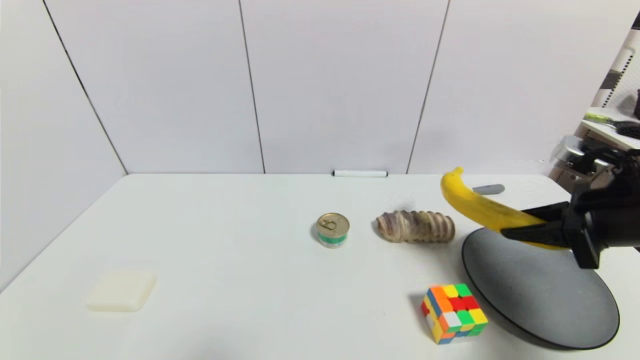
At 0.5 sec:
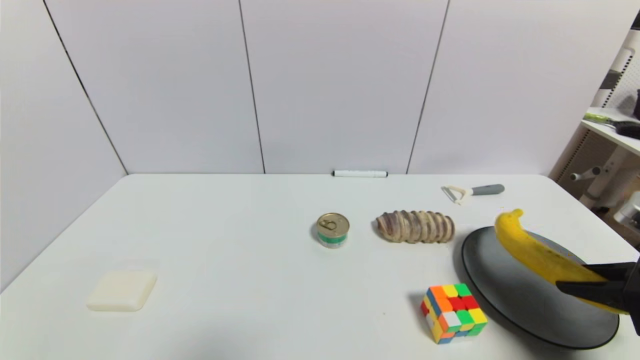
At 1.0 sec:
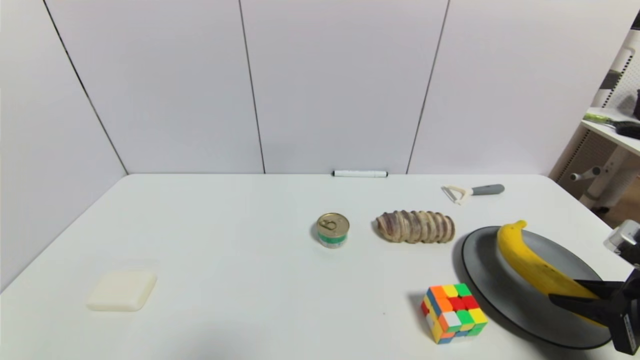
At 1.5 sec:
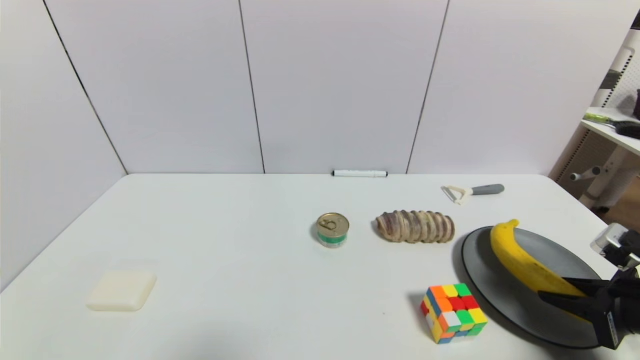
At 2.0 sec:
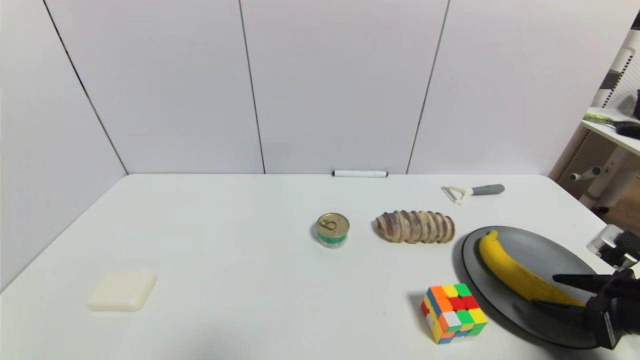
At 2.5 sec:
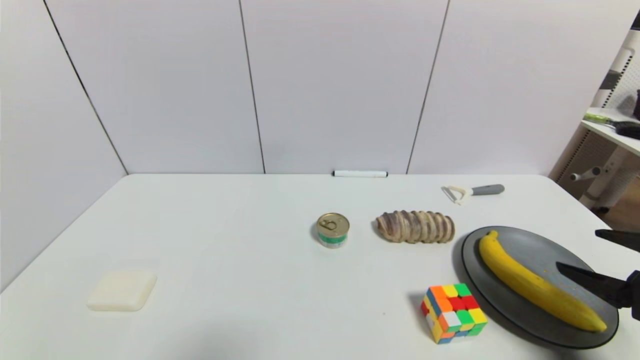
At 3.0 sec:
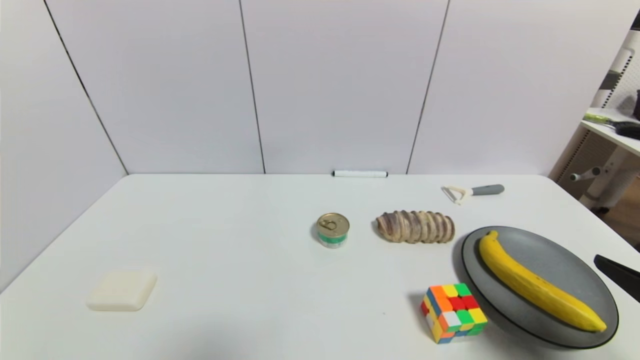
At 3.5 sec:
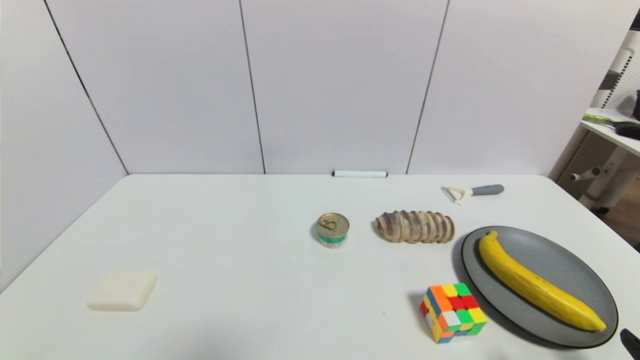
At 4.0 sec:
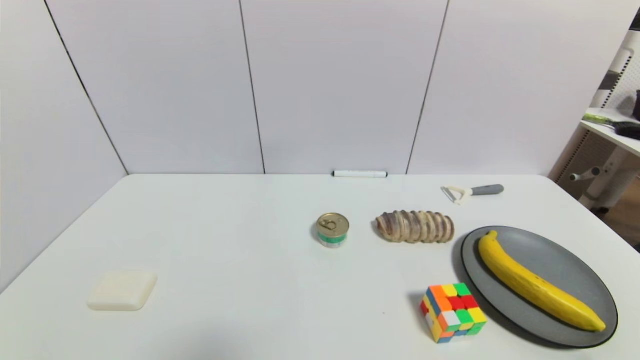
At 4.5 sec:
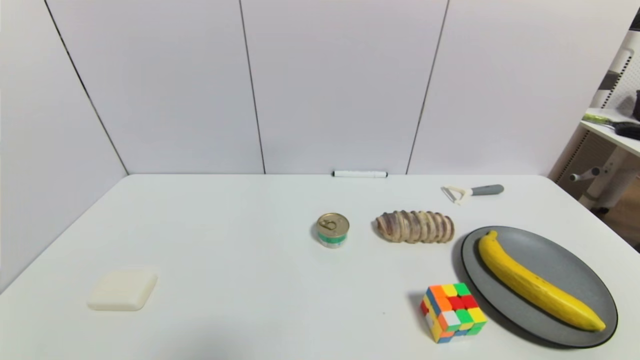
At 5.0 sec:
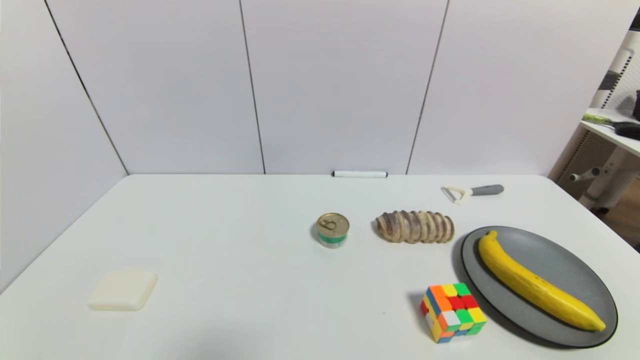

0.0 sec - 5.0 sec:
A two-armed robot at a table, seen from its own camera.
Task of the whole recording: use a gripper to pick the target object and place on the gray plate.
Step, 0.0 sec - 2.0 sec: Place the banana on the gray plate with the right gripper.
0.0 sec - 2.5 sec: The right gripper is displaced backward by roughly 10 cm, and opens up.
2.5 sec - 5.0 sec: The right gripper shifts roughly 20 cm backward and downward.

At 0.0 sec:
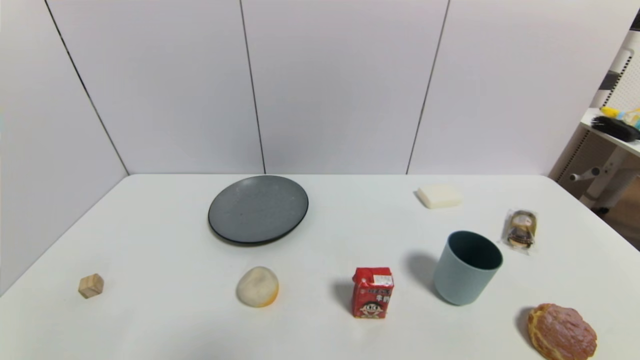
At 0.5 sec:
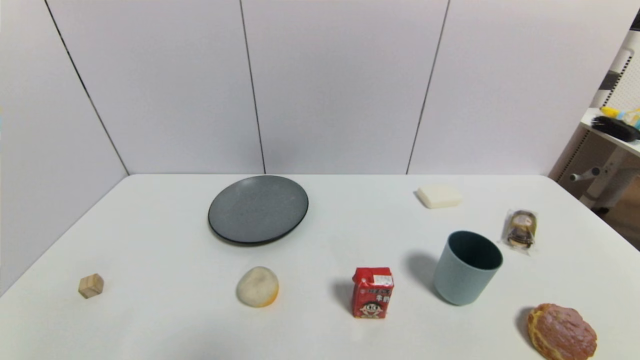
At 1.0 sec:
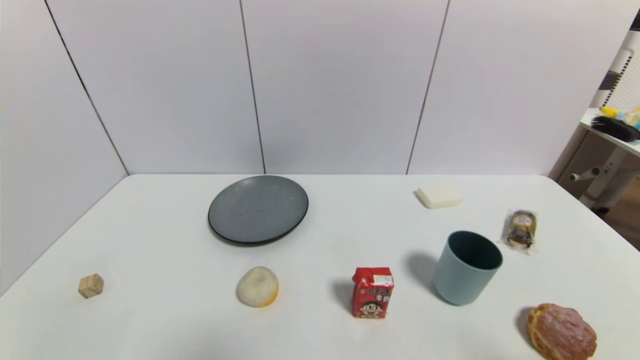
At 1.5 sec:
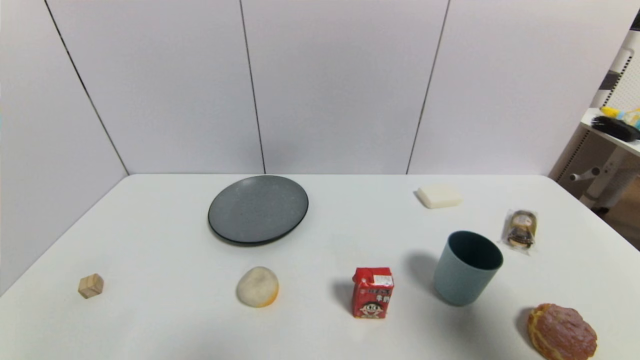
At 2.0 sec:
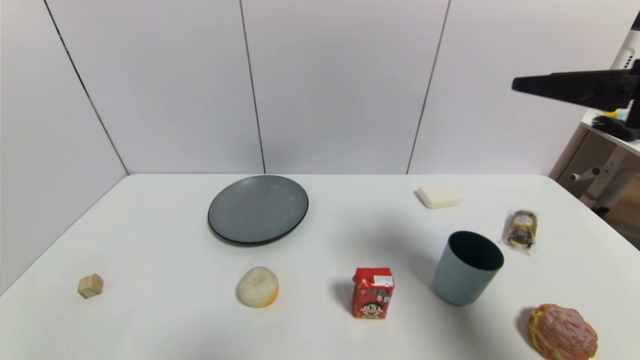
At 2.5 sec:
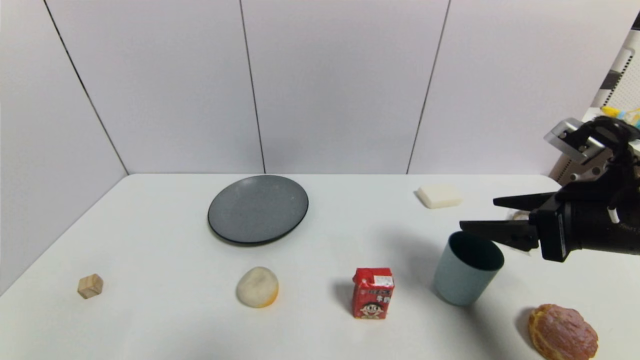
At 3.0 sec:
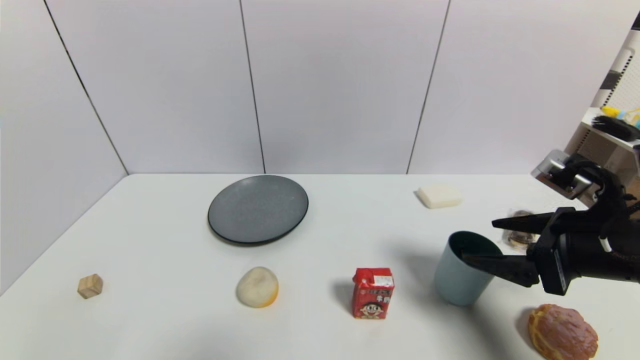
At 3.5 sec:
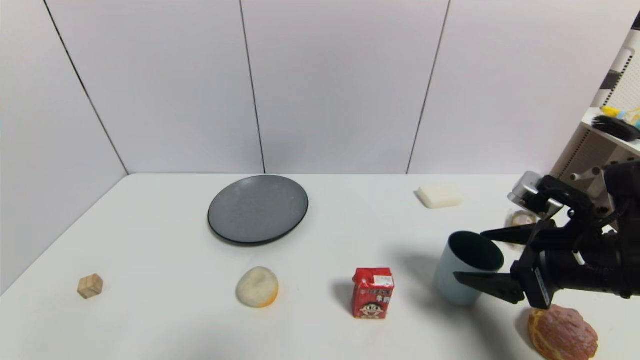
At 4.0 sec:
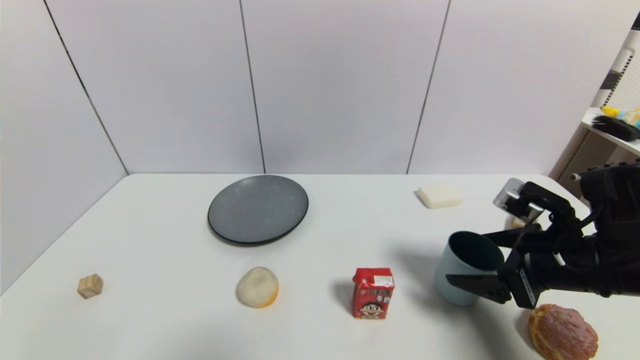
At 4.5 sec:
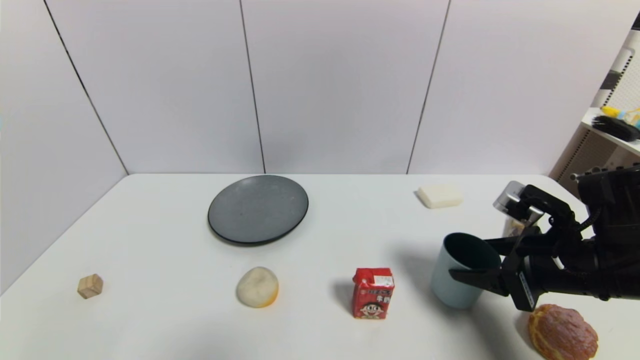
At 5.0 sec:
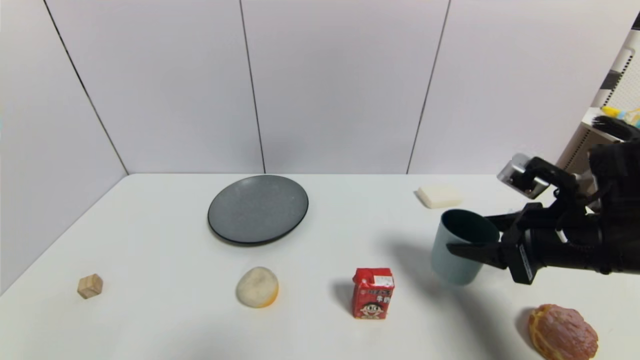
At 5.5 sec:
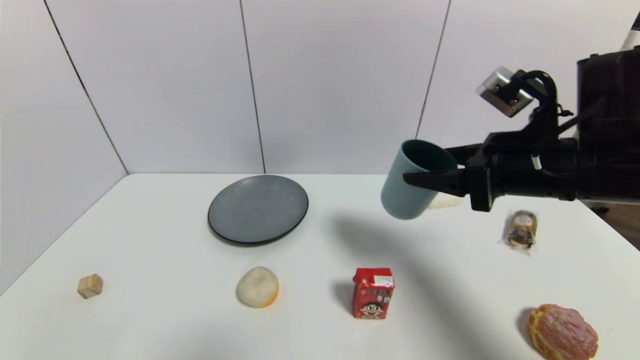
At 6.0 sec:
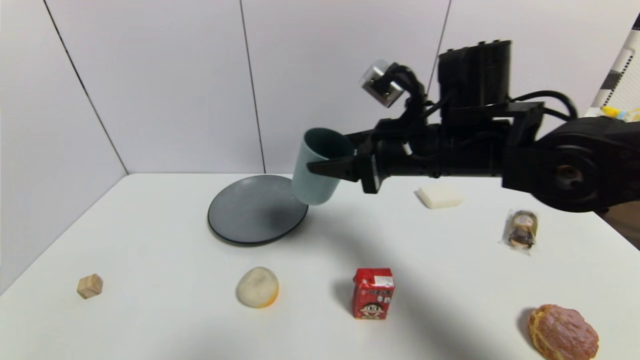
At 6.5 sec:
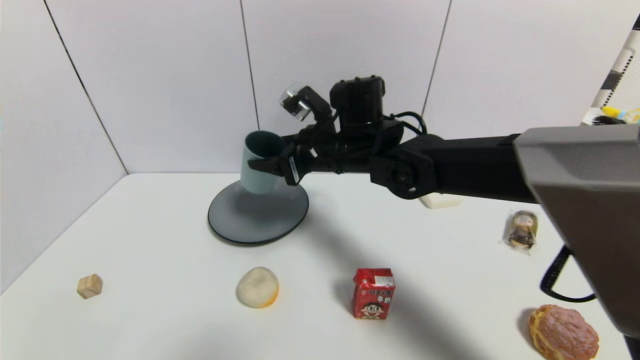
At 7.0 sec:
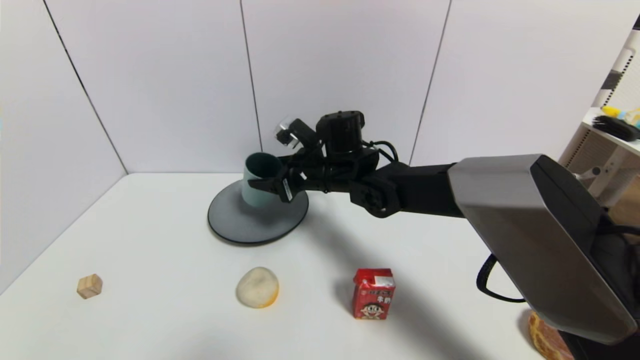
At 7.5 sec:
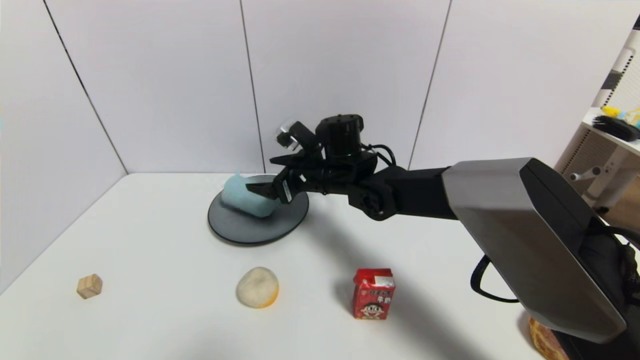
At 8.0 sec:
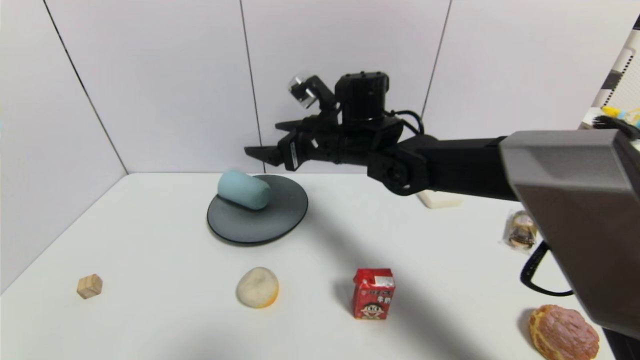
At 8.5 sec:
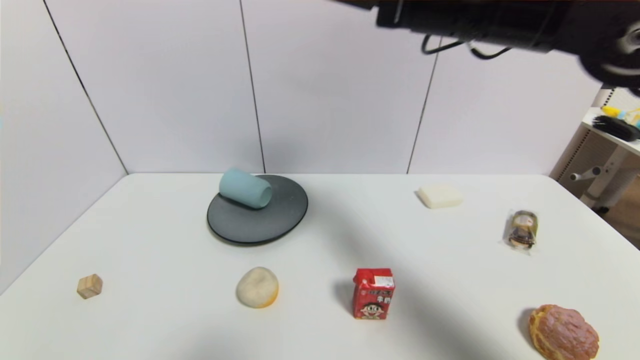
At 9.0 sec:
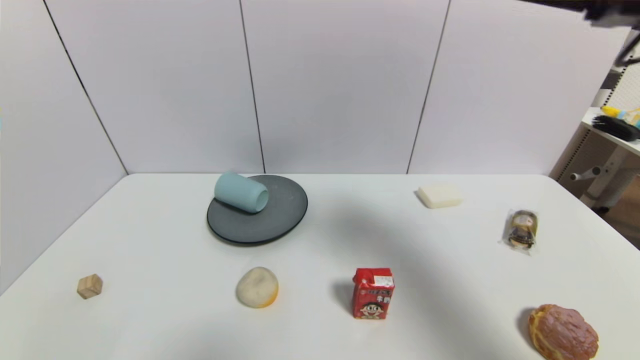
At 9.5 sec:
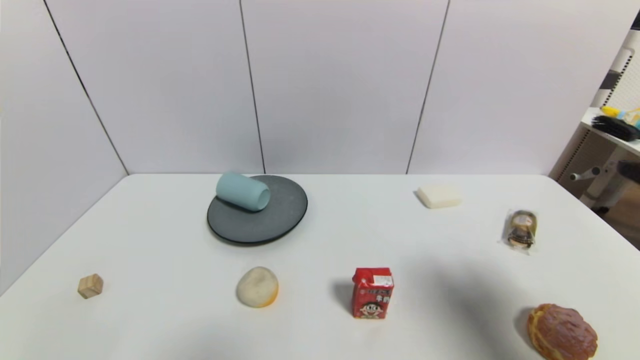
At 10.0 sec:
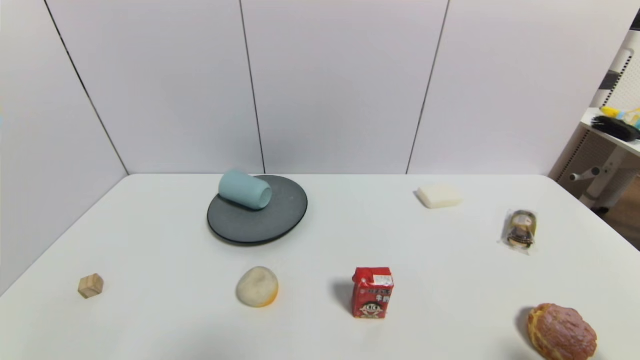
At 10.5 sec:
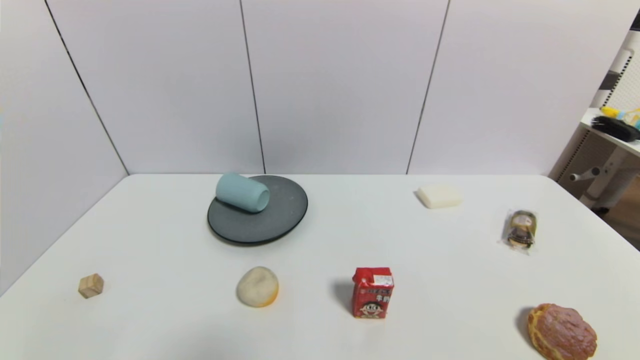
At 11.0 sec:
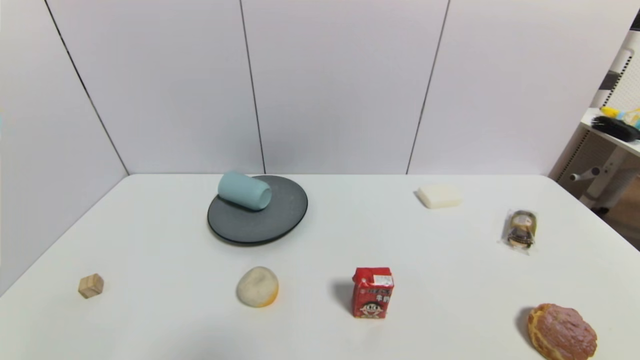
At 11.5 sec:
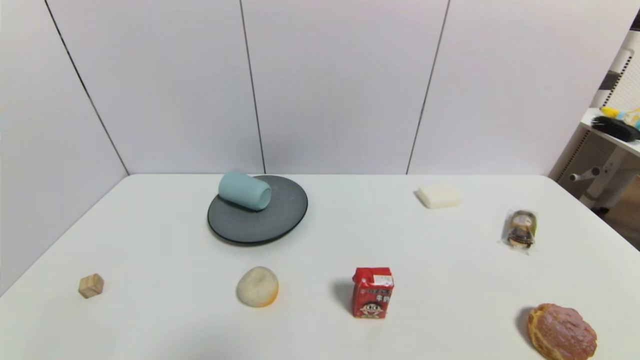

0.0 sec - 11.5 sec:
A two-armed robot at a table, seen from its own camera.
Task of the whole recording: use a gripper to pick the target object and place on the gray plate.
Step, 0.0 sec - 4.0 sec: Grasp the blue cup with the right gripper.
Step, 4.5 sec - 7.5 sec: Place the blue cup on the gray plate with the right gripper.
0.0 sec - 2.0 sec: The right gripper moves upward and forward, roughly 35 cm.
2.0 sec - 4.0 sec: The right gripper goes some 15 cm downward.
4.0 sec - 6.0 sec: The right gripper travels to the left, upward and forward by some 20 cm, and closes.
6.0 sec - 7.5 sec: The right gripper moves to the left, forward and downward, roughly 15 cm, and opens.
7.5 sec - 9.5 sec: The right gripper heads to the right and backward, covering about 40 cm.
9.5 sec - 11.5 sec: The right gripper travels downward and backward by some 25 cm.
